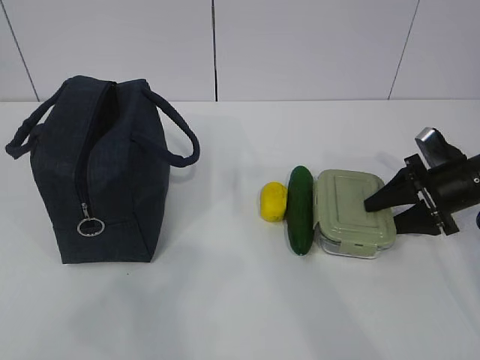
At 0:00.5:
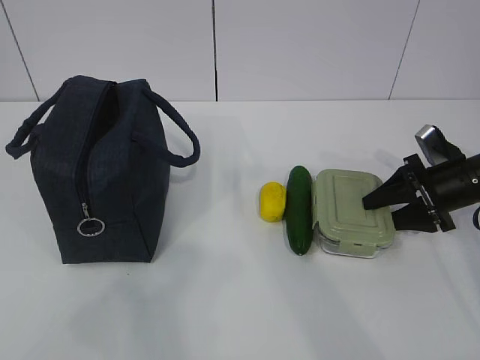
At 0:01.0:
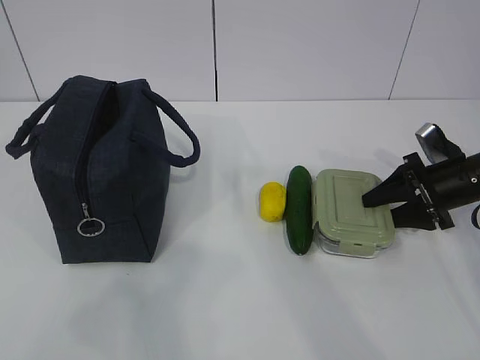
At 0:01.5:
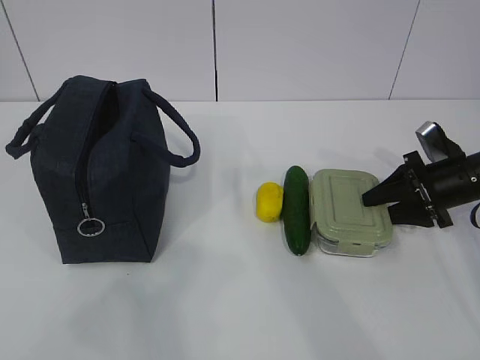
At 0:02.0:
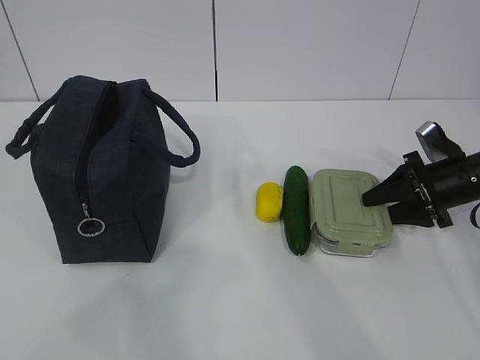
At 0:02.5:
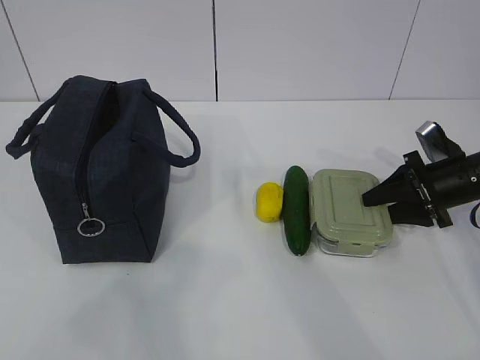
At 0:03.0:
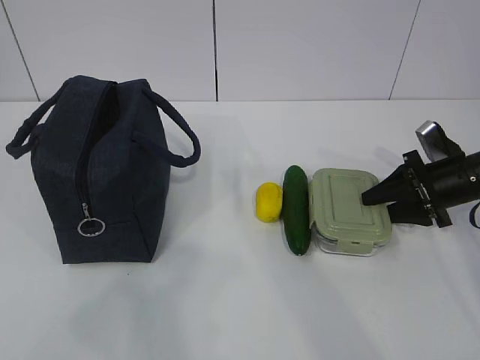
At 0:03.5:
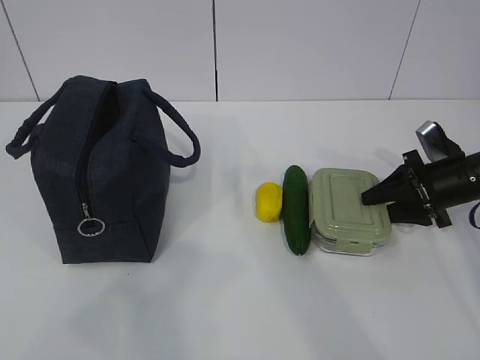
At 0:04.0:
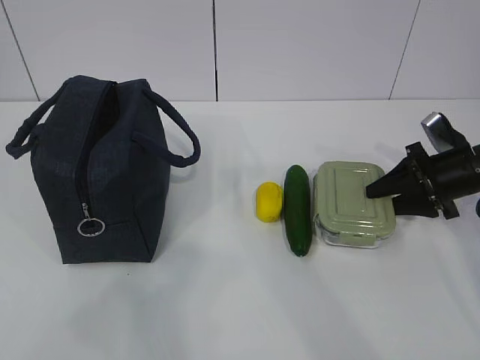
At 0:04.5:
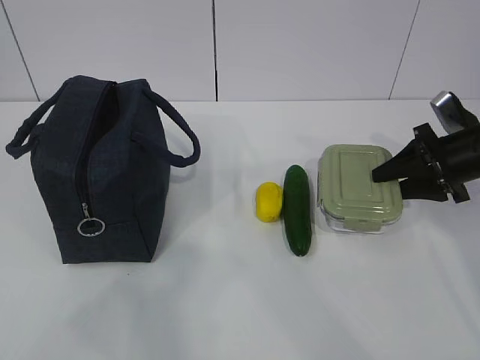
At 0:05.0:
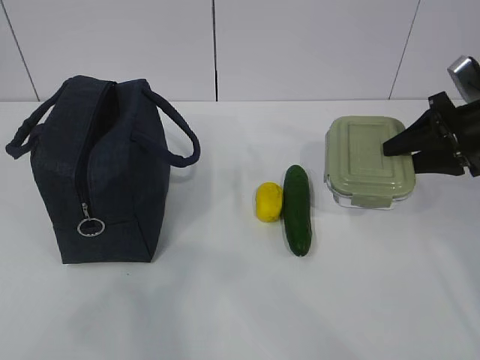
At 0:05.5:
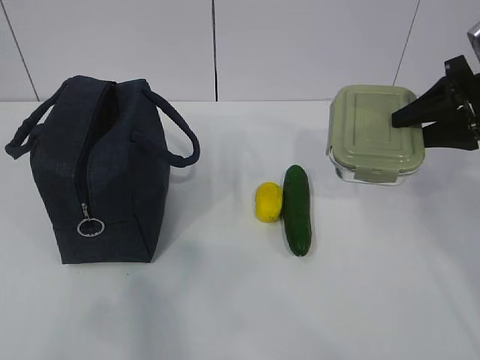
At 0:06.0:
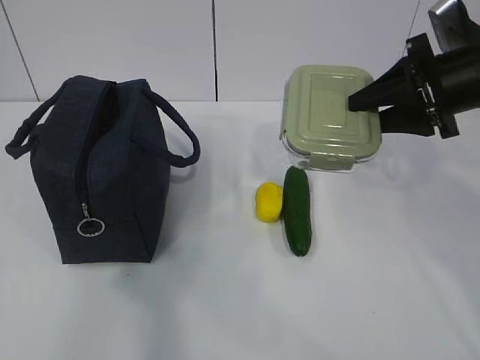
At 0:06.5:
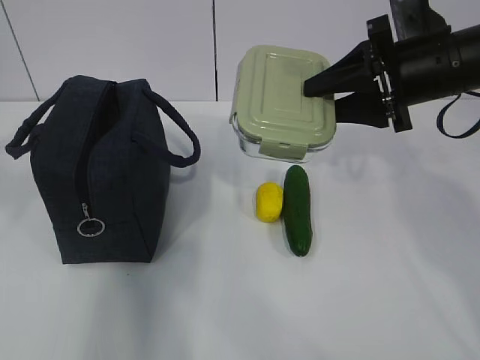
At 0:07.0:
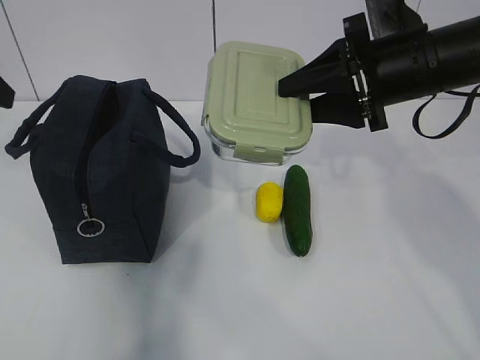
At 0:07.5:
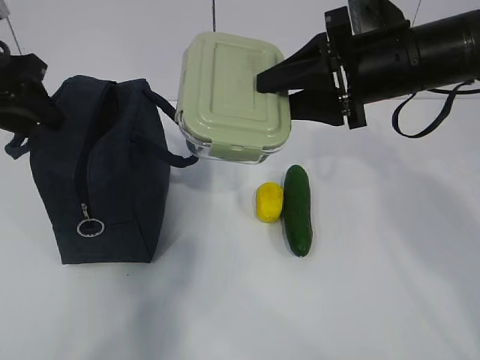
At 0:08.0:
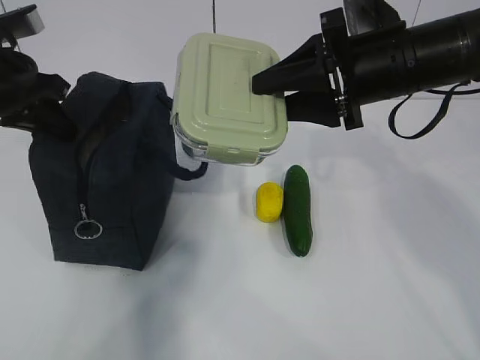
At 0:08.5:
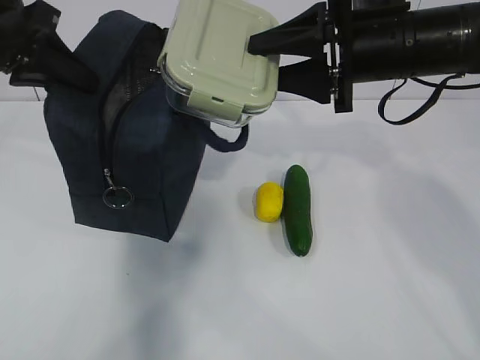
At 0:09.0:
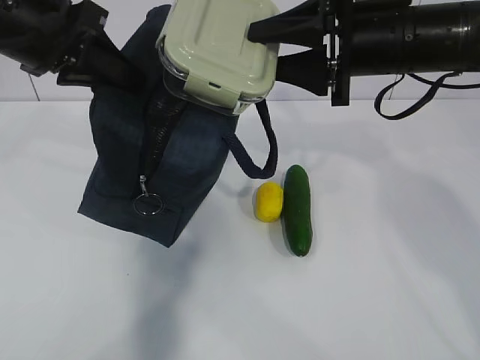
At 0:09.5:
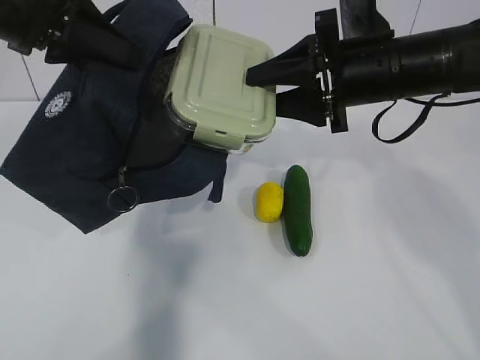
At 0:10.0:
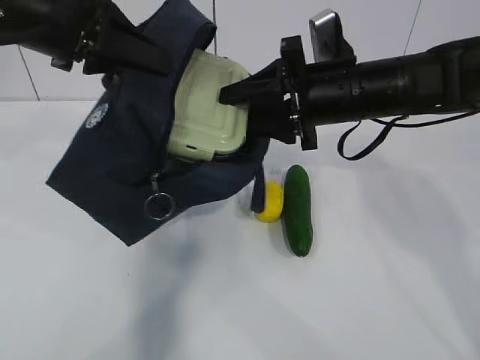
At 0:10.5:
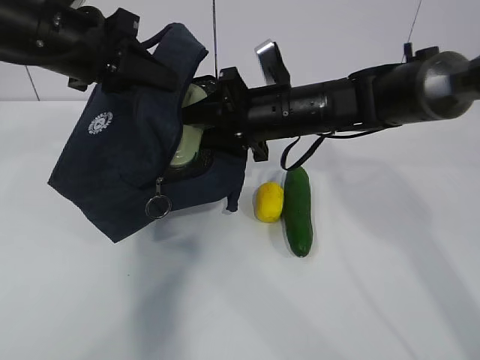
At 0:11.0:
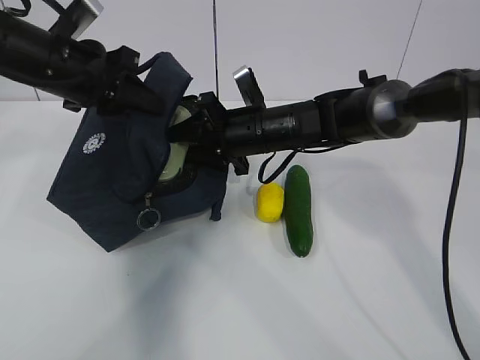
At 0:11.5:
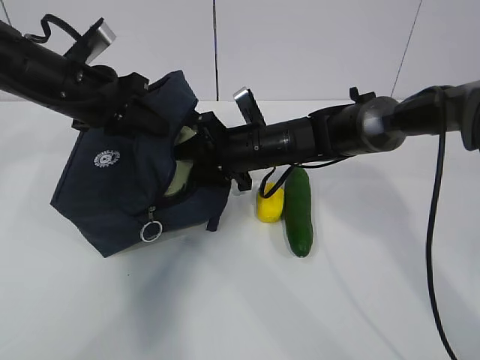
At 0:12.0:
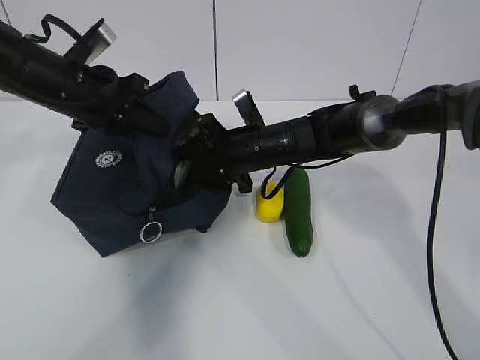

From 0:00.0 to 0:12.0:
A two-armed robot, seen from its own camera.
Step, from 0:05.5 to 0:08.0: Place it into the bag with your right hand.
From 0:00.0 to 0:02.0: The grippers move only a little.
From 0:02.0 to 0:04.0: Both grippers stay put.
From 0:04.0 to 0:06.0: The right gripper goes about 15 cm upward and to the left.
From 0:06.0 to 0:08.0: The right gripper goes approximately 10 cm to the left, while the left gripper heads forward, covering approximately 35 cm, and closes its fingers.
From 0:08.0 to 0:10.0: The left gripper is displaced to the right and upward by approximately 10 cm. Meanwhile the right gripper ends up about 5 cm from where it was.
From 0:10.0 to 0:12.0: The left gripper is displaced downward and forward by approximately 10 cm; the right gripper travels downward, to the left and forward by about 15 cm.

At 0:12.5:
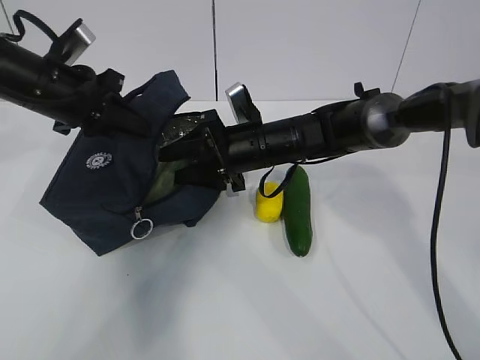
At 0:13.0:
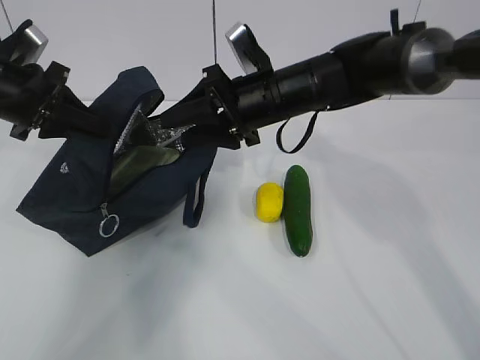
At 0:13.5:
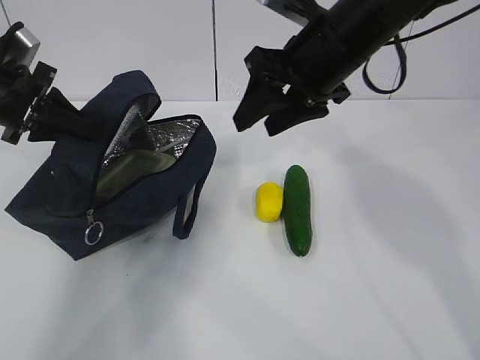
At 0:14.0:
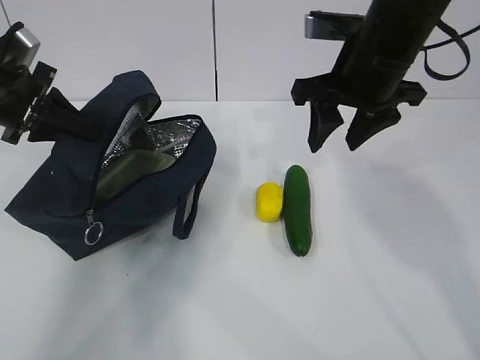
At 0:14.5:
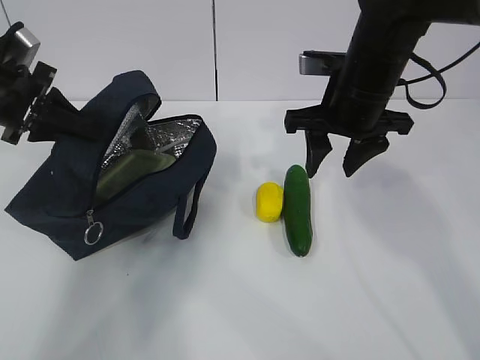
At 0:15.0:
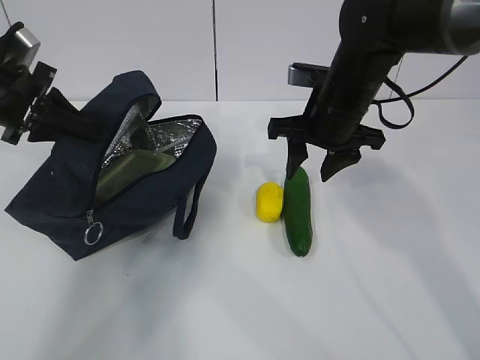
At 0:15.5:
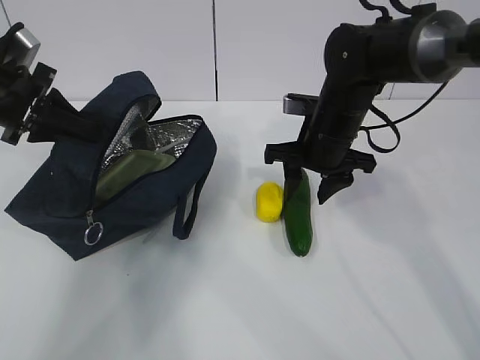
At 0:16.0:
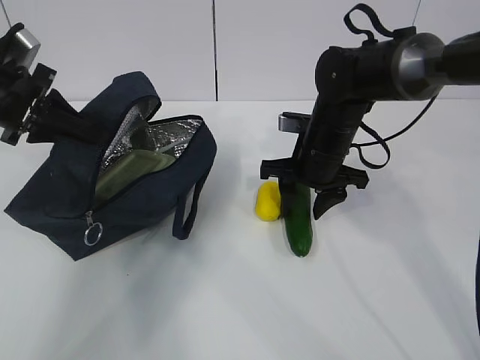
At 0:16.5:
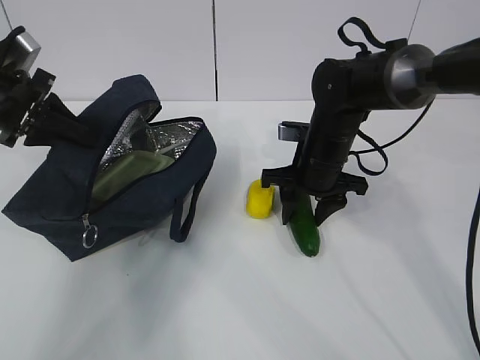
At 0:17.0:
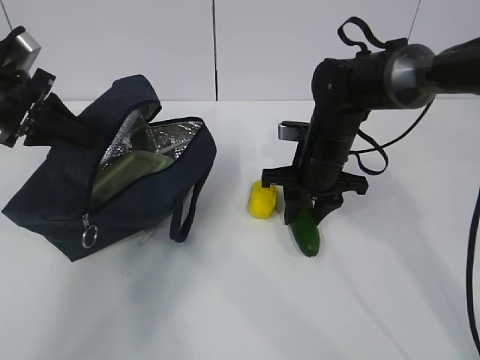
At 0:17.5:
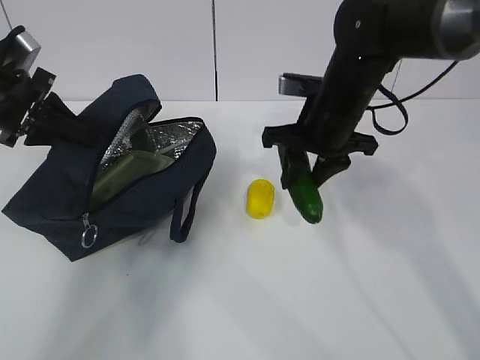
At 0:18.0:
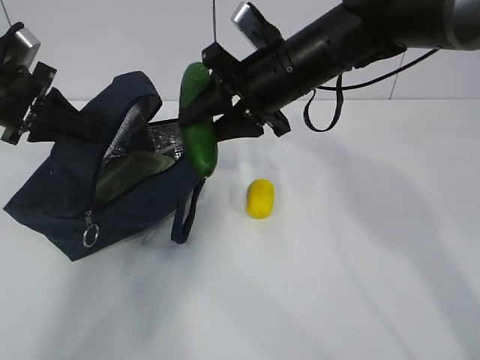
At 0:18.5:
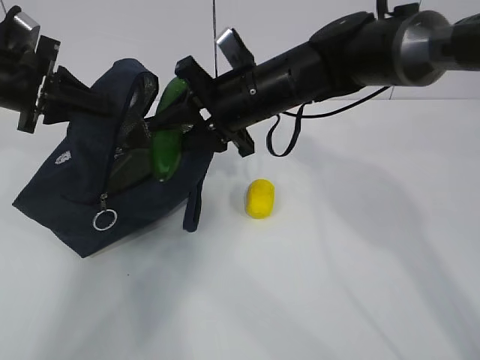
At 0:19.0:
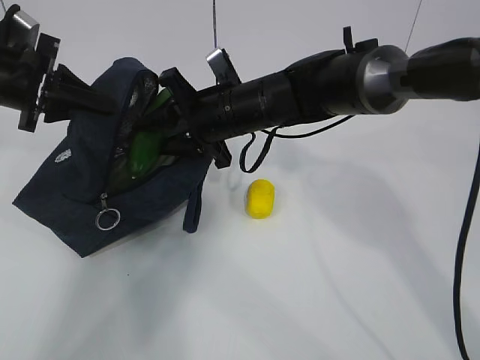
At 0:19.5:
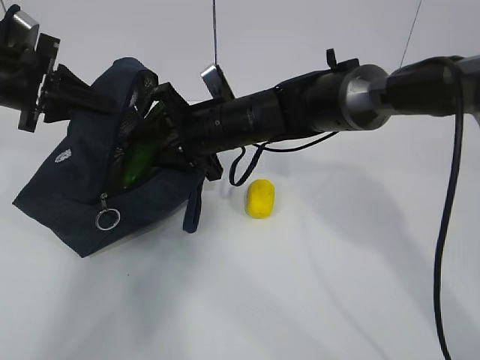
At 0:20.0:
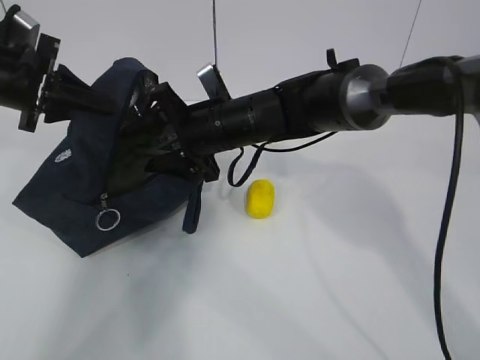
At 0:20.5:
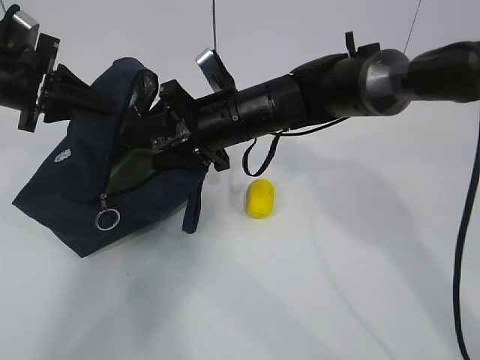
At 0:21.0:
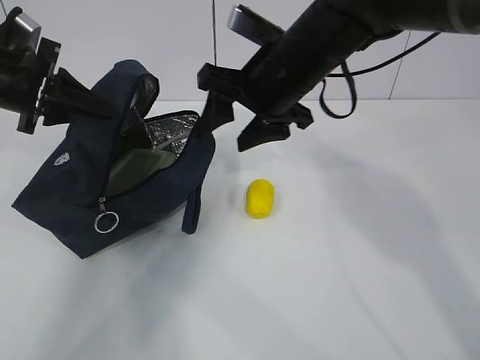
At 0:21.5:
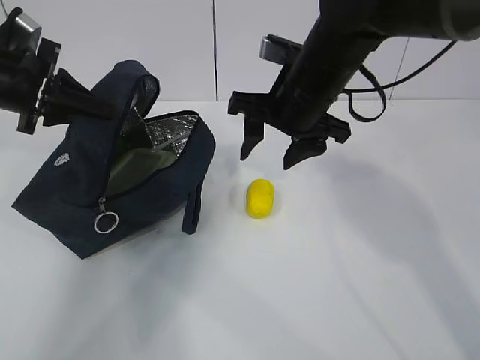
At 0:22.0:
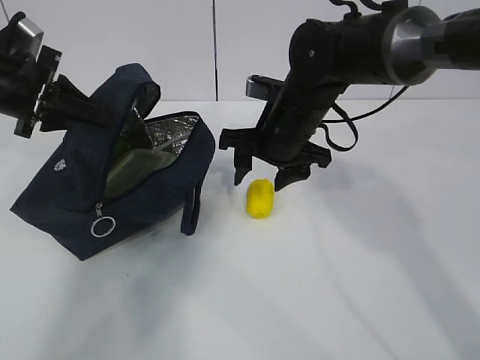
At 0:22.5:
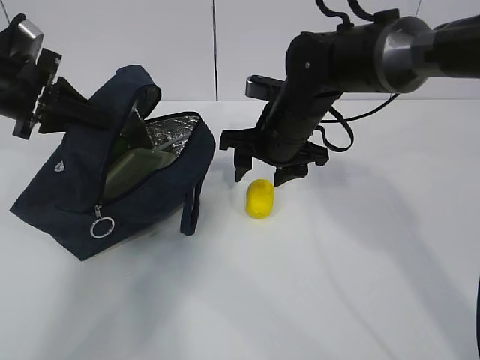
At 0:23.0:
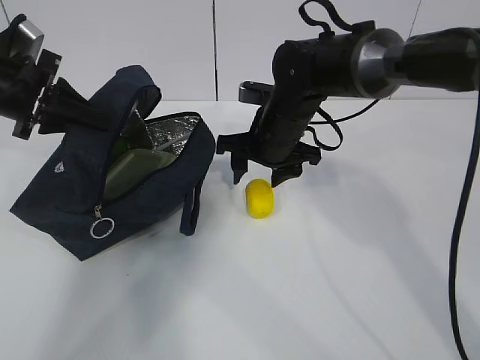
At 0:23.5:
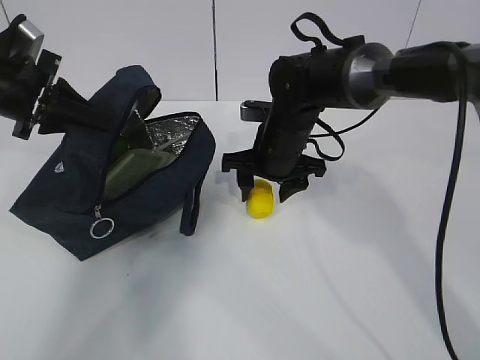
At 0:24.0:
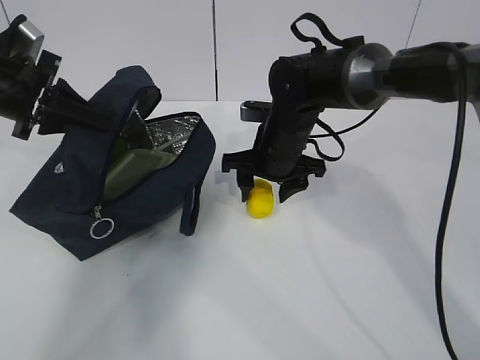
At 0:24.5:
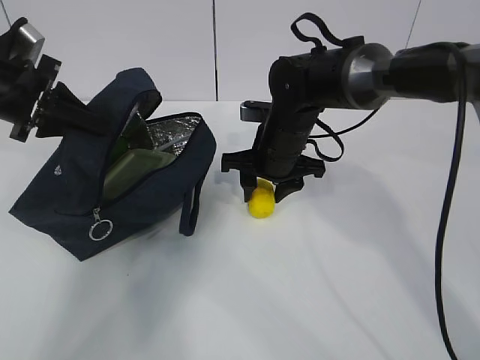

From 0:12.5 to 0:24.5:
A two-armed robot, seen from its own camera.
Step, from 0:13.0 to 0:15.0: Place it into the bag with your right hand.
Step, from 0:15.5 to 0:19.0: Grab the lemon with your right hand.
From 0:12.5 to 0:14.5: The right gripper is displaced upward, to the right and backward by some 15 cm. Meanwhile the left gripper is displaced to the left by approximately 5 cm.
From 0:14.5 to 0:16.5: The right gripper travels downward by some 10 cm.
From 0:16.5 to 0:18.5: The right gripper heads upward and to the left, covering roughly 15 cm.
From 0:18.5 to 0:20.5: The right gripper opens.
From 0:20.5 to 0:22.5: The right gripper shifts roughly 5 cm to the right, and moves some 5 cm upward and comes back.
From 0:22.5 to 0:24.5: The grippers make only small movements.

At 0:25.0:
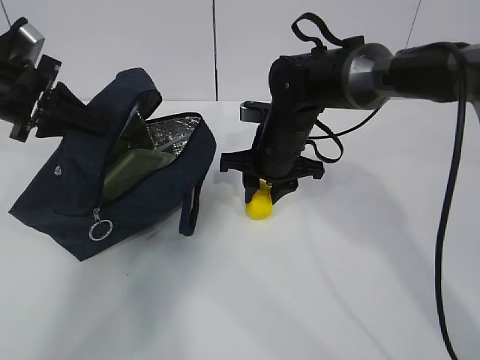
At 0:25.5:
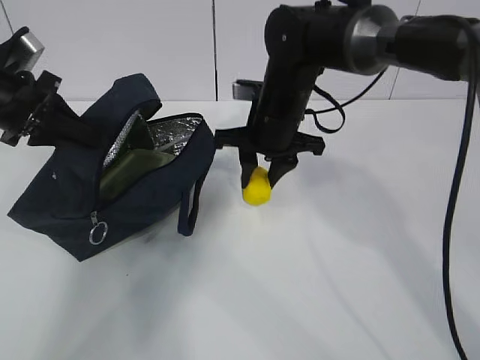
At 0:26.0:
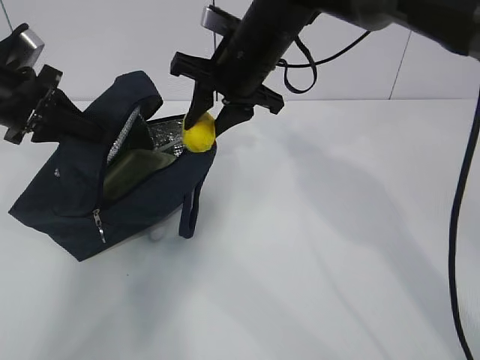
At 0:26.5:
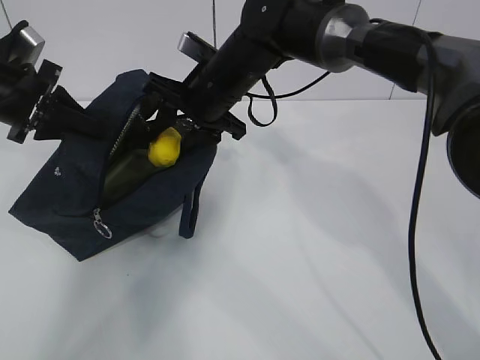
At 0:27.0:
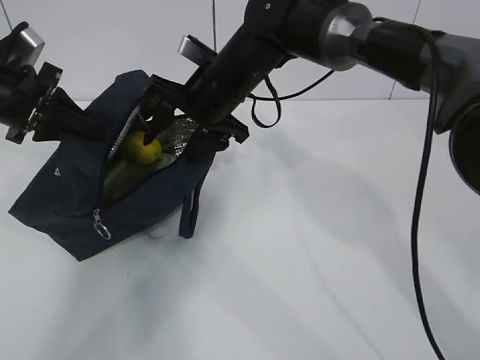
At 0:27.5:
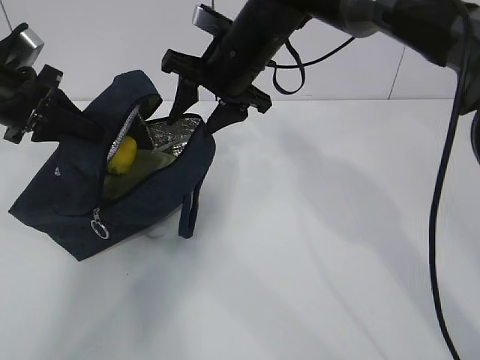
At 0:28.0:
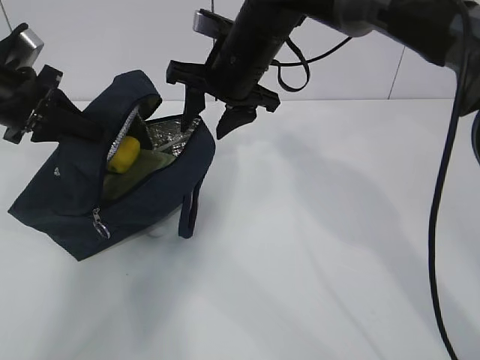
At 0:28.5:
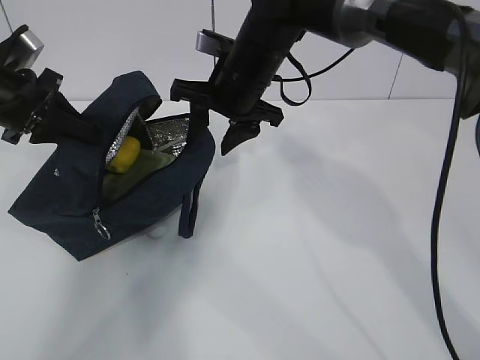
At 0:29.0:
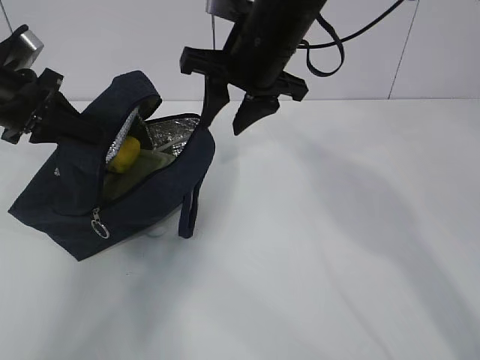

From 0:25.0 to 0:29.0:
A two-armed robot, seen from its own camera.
Step, from 0:25.5 to 0:27.0: Move the lunch bag to the right.
From 0:25.0 to 0:27.0: The right gripper moves upward and to the left, some 10 cm, and opens its fingers.
From 0:27.0 to 0:29.0: The right gripper shifts some 5 cm upward.
